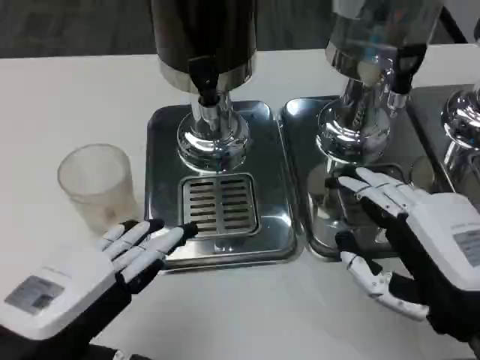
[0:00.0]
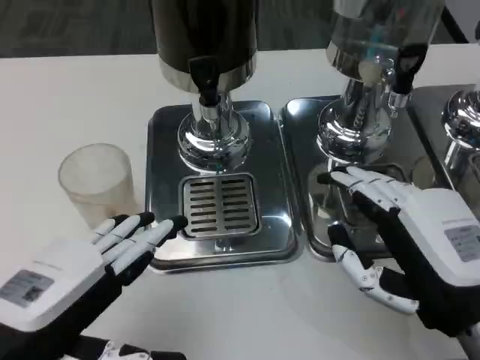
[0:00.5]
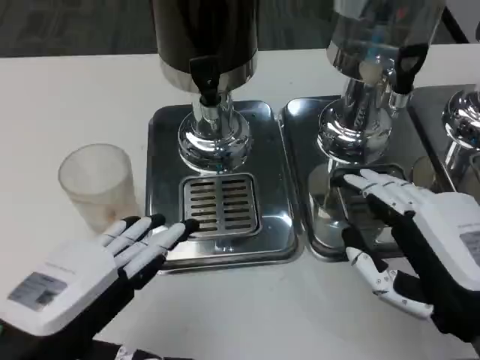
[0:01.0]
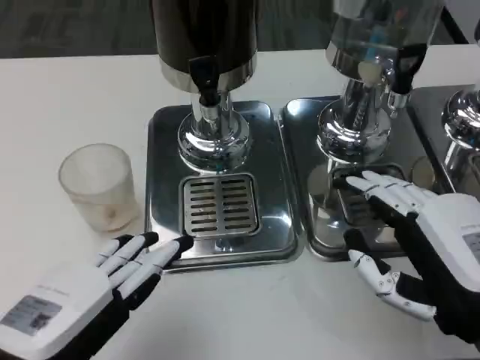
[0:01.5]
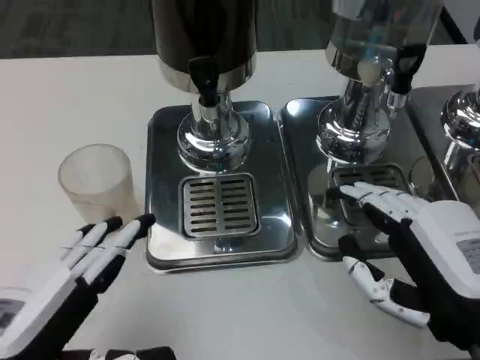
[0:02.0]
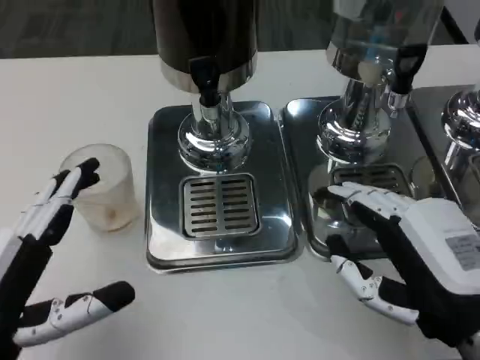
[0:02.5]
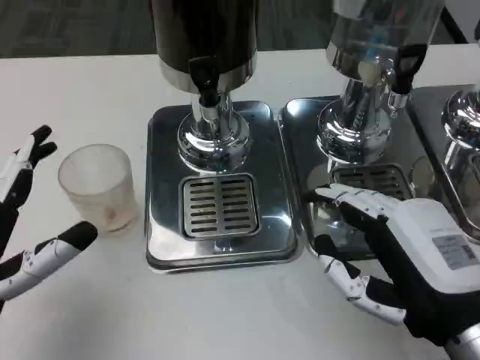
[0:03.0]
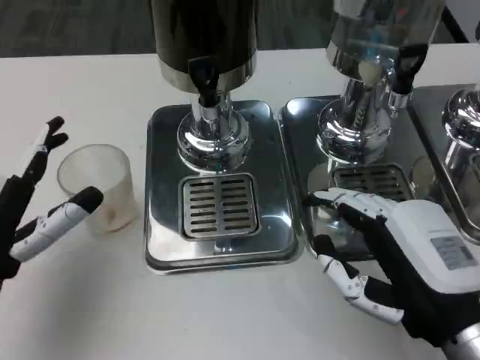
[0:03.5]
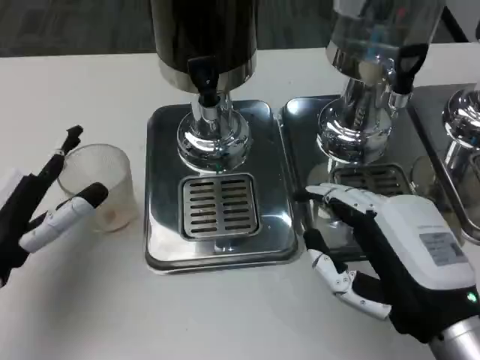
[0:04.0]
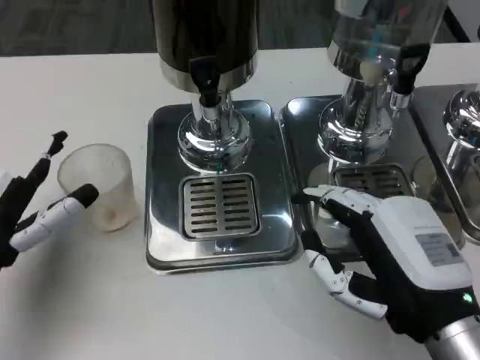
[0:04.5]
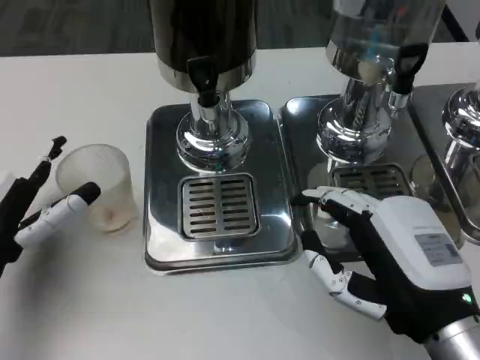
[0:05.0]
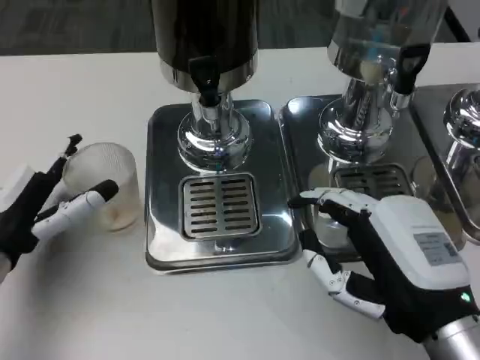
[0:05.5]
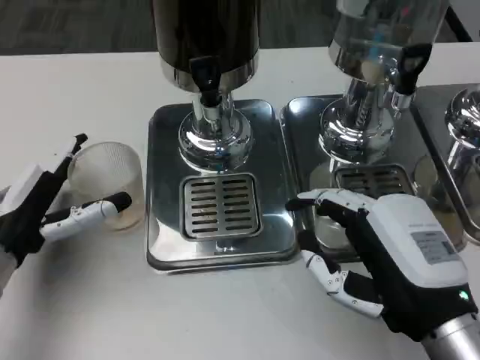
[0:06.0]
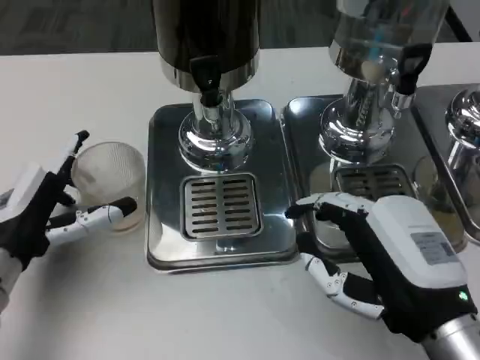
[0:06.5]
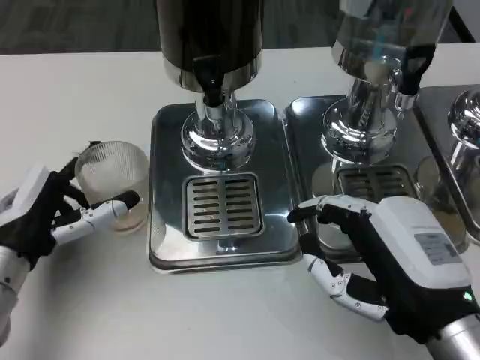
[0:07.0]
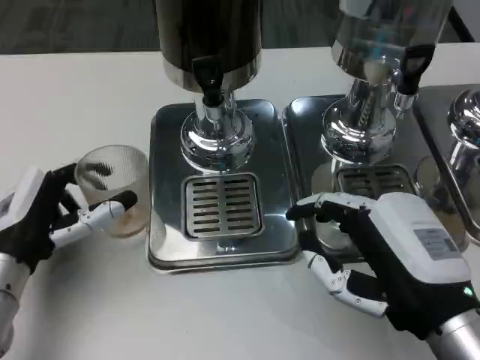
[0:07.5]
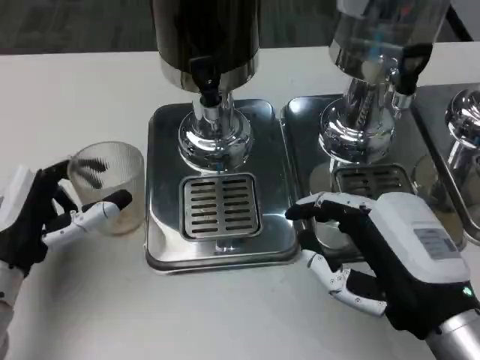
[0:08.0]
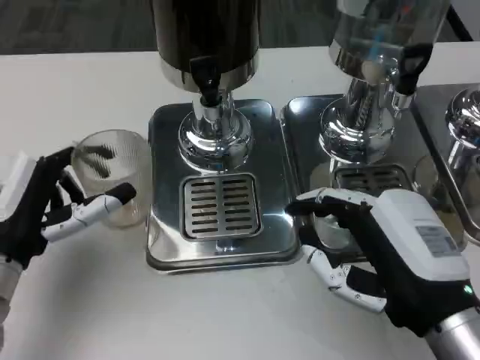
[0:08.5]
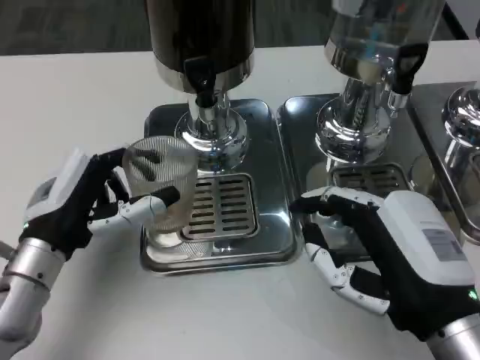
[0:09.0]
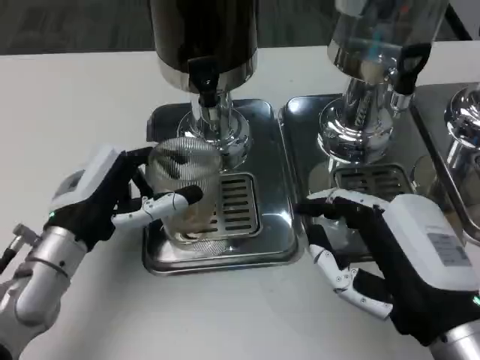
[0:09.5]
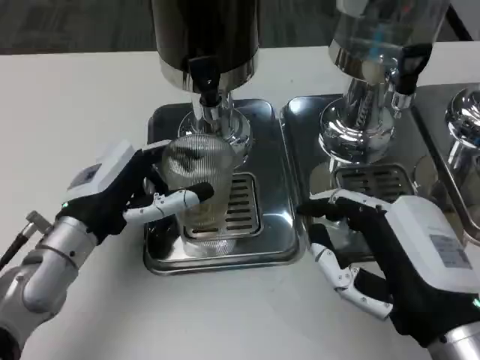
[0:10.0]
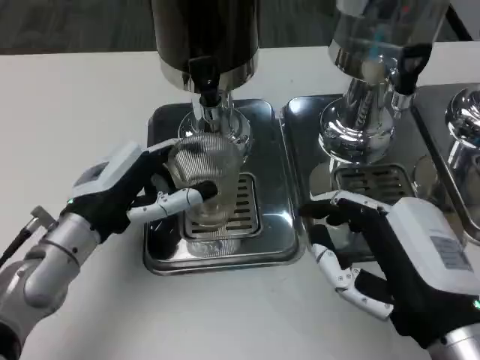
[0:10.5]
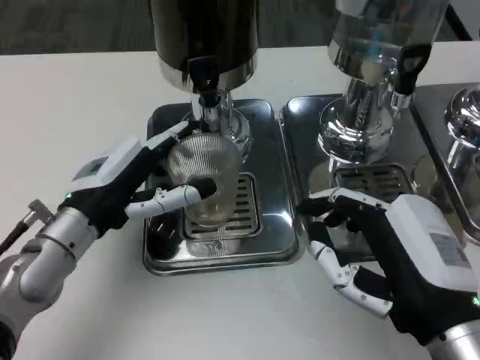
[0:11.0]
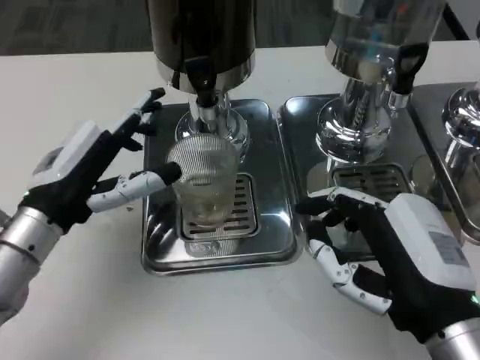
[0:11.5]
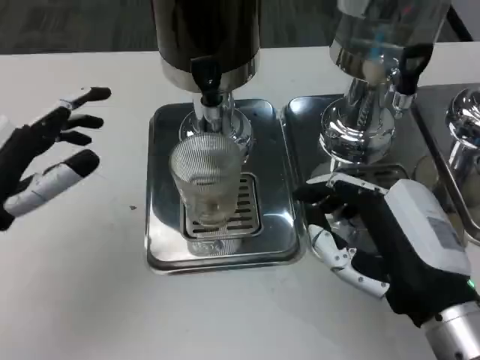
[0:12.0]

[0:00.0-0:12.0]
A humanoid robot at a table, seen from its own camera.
Task of the whole recording: Grasp the cup under the faucet to collect the drink, then remove the cup.
0:00.0 to 0:02.0: There are only small adjustments of the hands.
0:02.0 to 0:04.0: The left hand travels forward by roughly 10 cm.
0:04.0 to 0:08.0: The hands make only small movements.
0:08.0 to 0:10.0: The left hand is displaced to the right by roughly 5 cm.
0:10.0 to 0:12.0: The left hand travels to the left by roughly 10 cm.

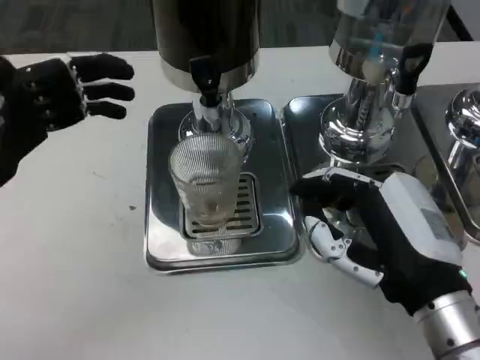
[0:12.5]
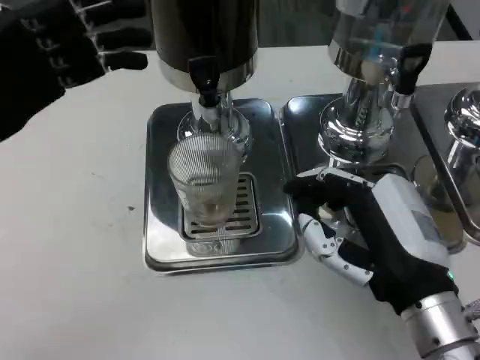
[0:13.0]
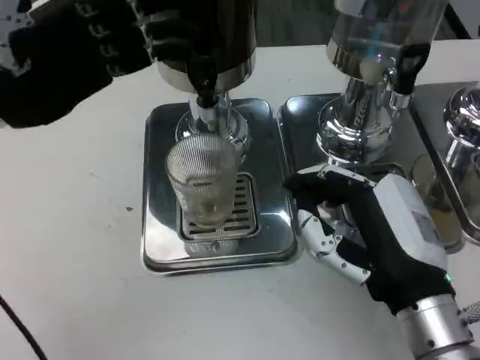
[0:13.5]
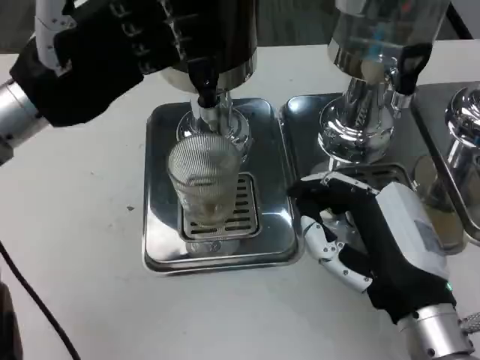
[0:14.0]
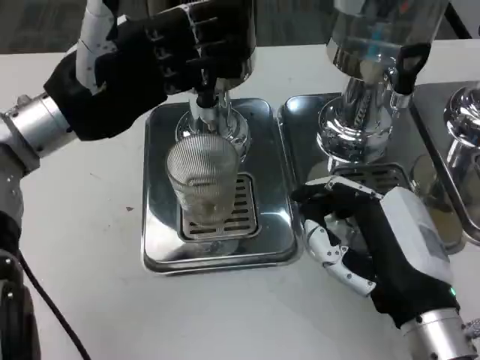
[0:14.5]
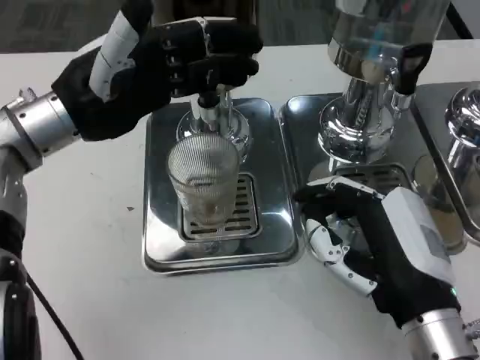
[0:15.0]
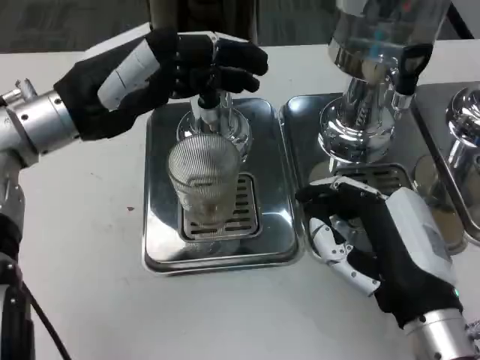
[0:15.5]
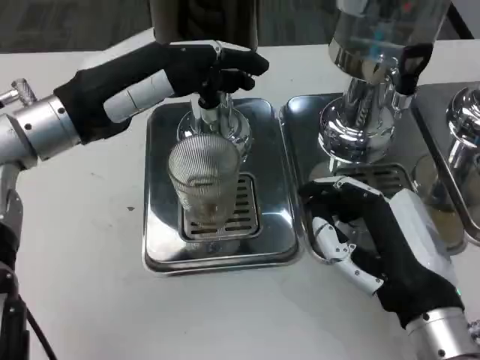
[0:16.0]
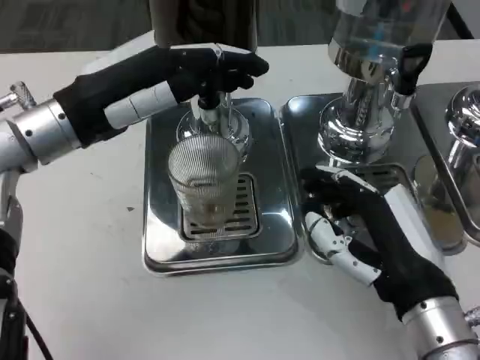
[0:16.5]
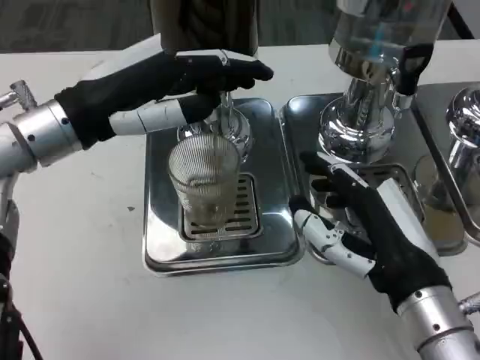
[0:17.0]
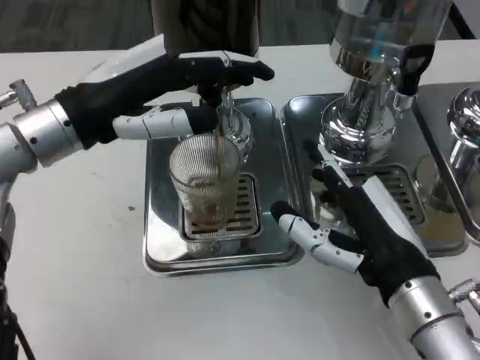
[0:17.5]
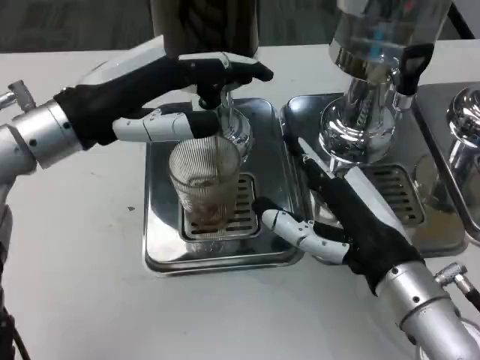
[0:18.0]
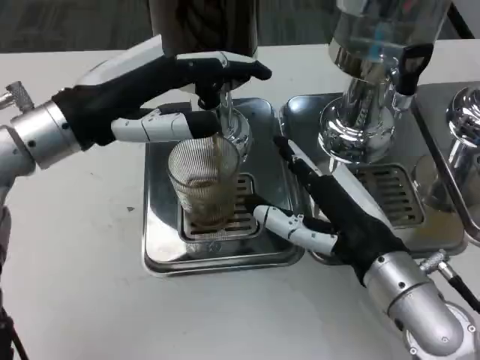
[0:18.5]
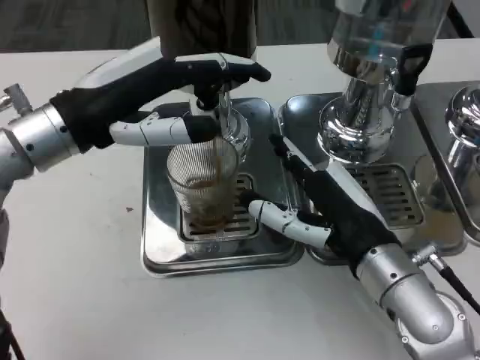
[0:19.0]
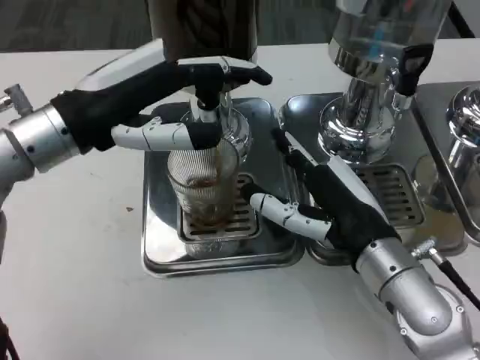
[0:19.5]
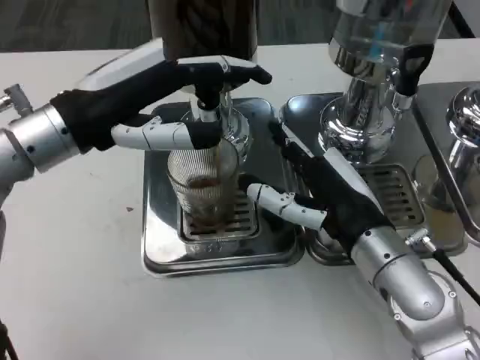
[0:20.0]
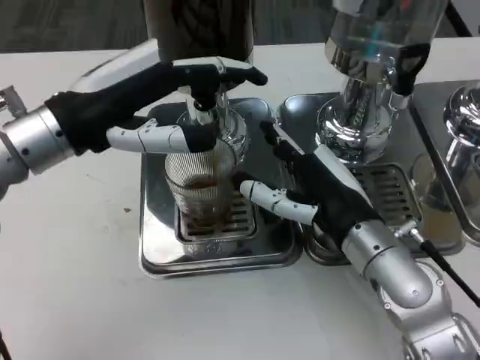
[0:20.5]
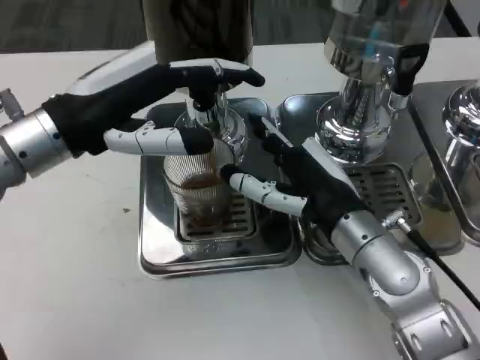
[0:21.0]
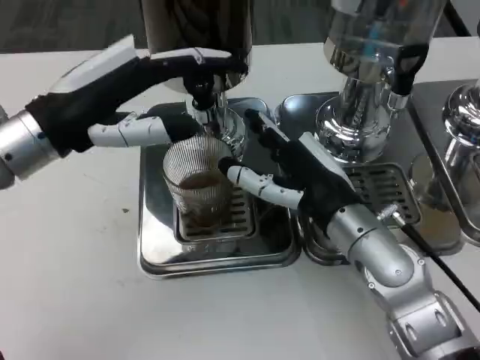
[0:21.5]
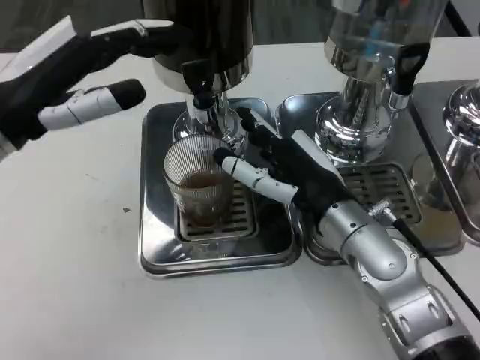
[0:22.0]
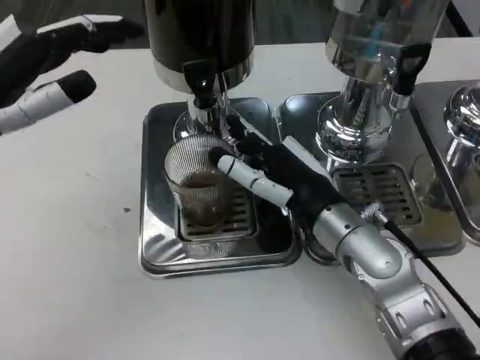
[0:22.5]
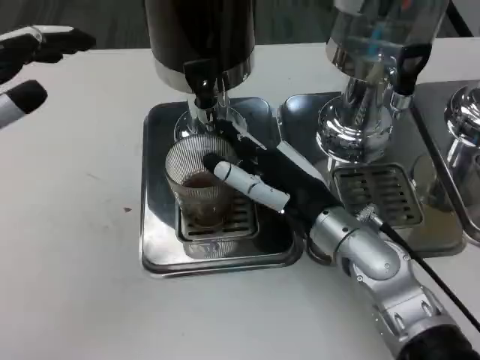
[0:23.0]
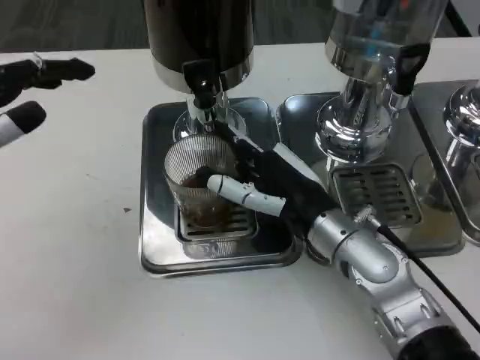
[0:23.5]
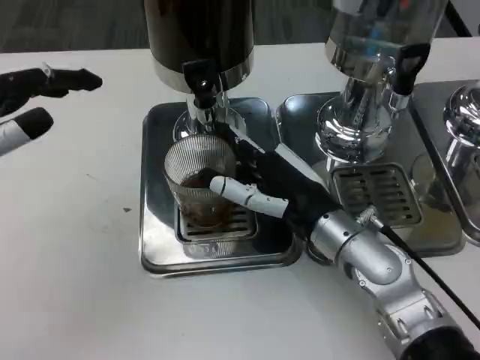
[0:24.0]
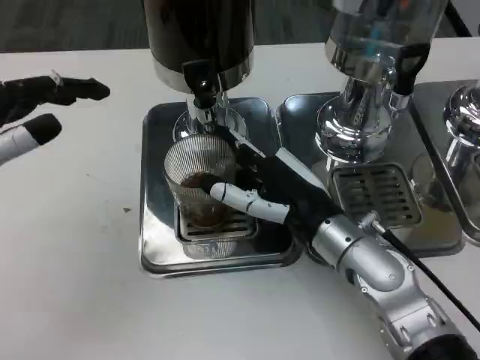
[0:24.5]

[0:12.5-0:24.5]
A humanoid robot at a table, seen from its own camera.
Task of the whole recording: Grasp the cup under the faucet to collect the drink, then remove the cup.
0:12.5 to 0:14.5: The left hand moves to the right and forward, some 10 cm.
0:20.5 to 0:22.5: The left hand moves to the left, about 5 cm.
0:22.5 to 0:24.5: The hands move only a little.

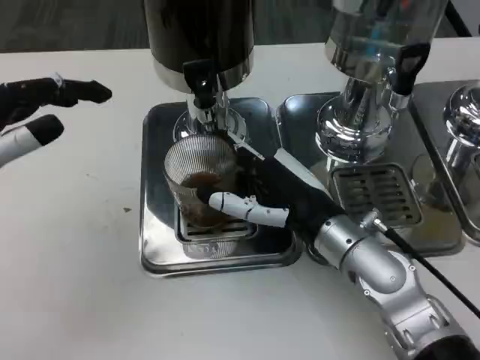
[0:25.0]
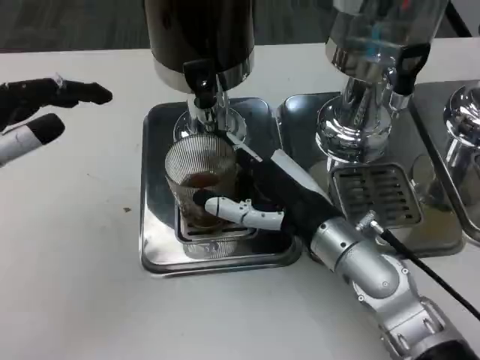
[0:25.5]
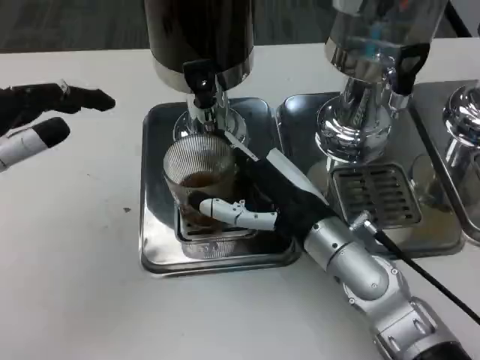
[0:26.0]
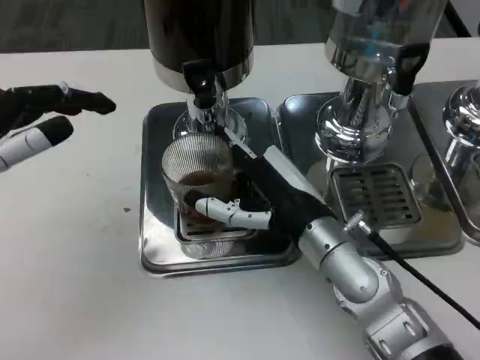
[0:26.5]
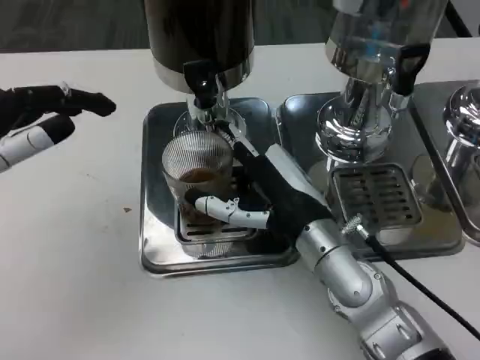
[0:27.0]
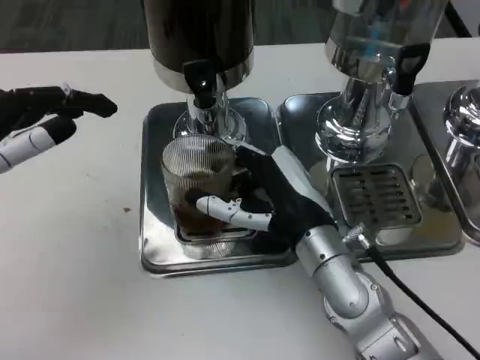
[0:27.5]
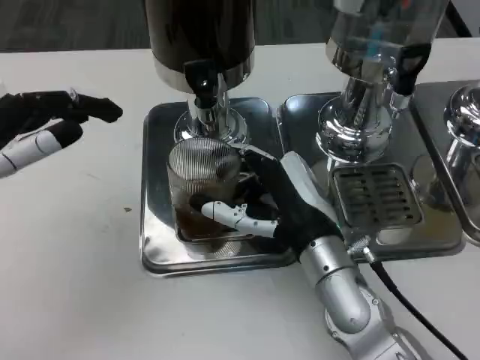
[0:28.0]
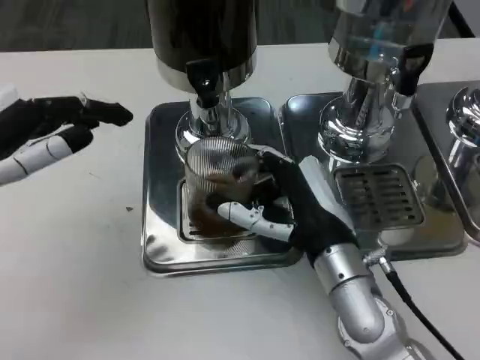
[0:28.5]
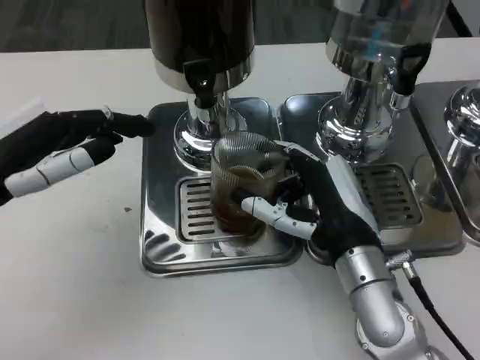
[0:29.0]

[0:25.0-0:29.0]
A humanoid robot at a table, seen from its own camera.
Task of the whole recording: Grasp the cup under the faucet to collect the drink, then remove the cup.
0:25.0 to 0:27.0: The hands make only small movements.
